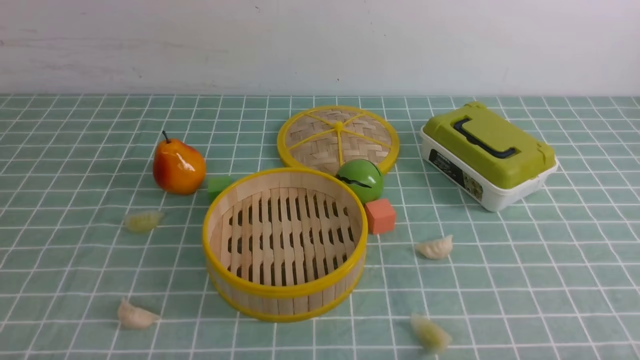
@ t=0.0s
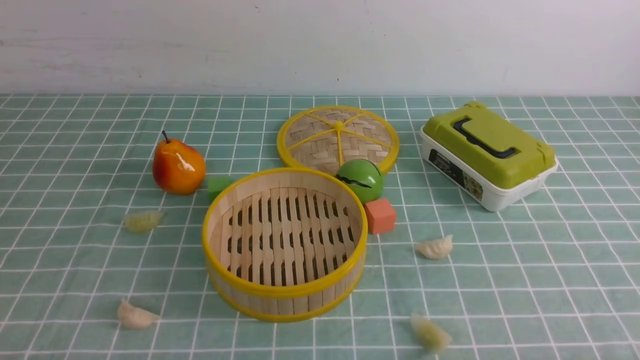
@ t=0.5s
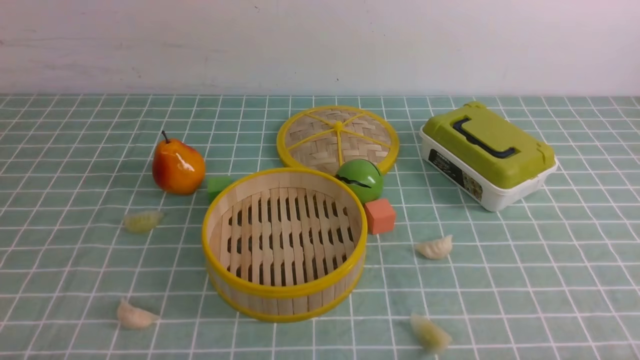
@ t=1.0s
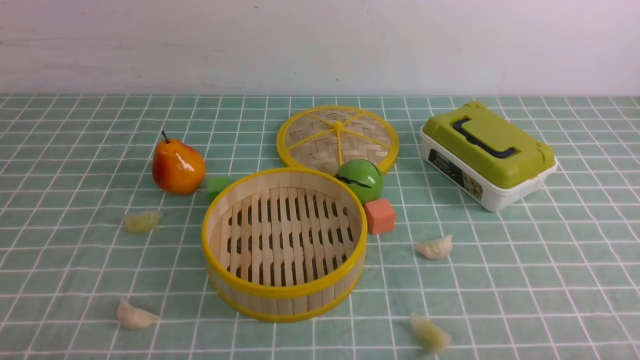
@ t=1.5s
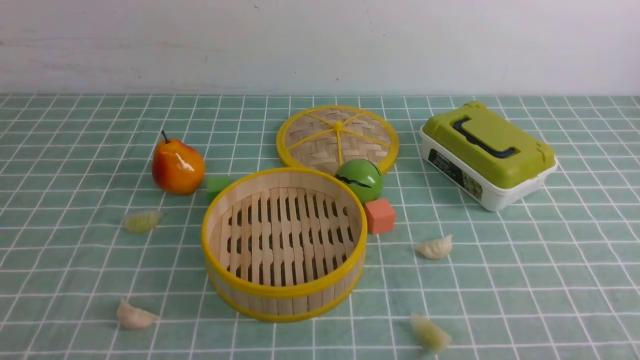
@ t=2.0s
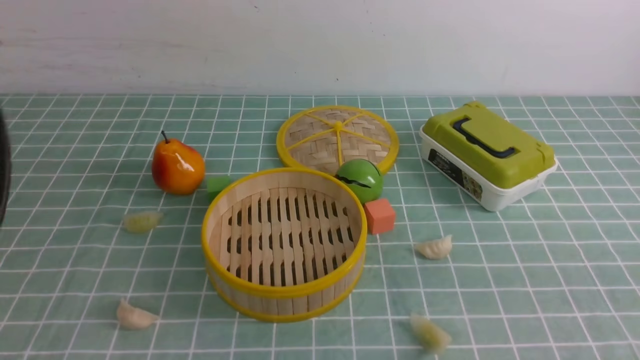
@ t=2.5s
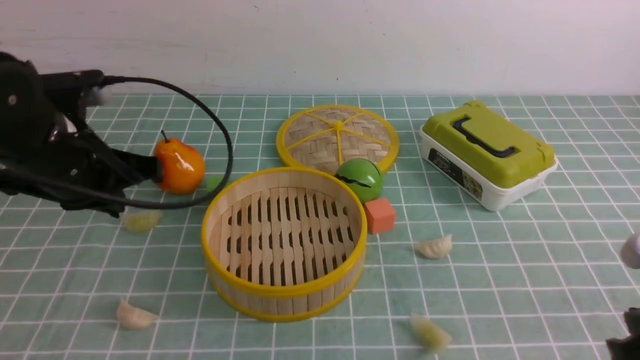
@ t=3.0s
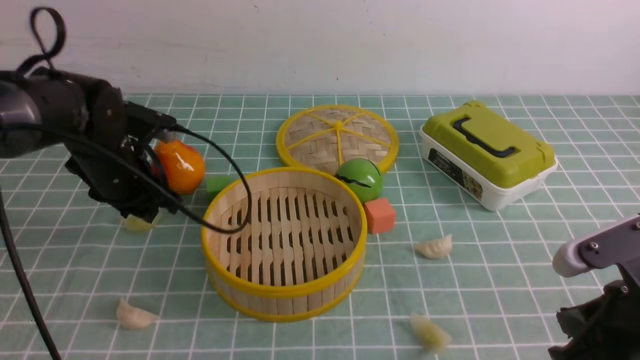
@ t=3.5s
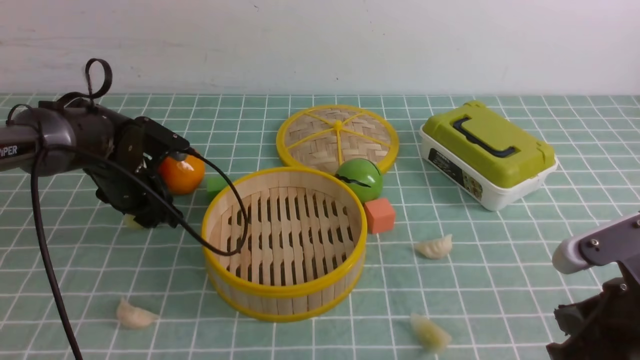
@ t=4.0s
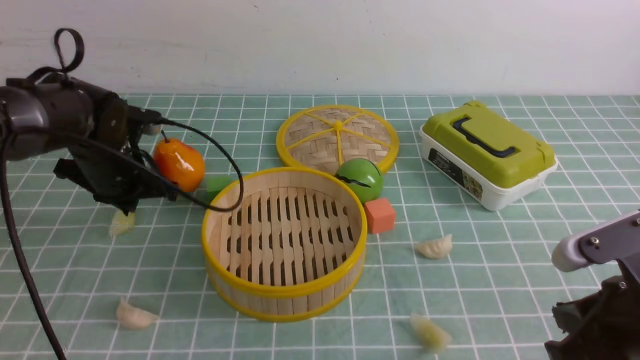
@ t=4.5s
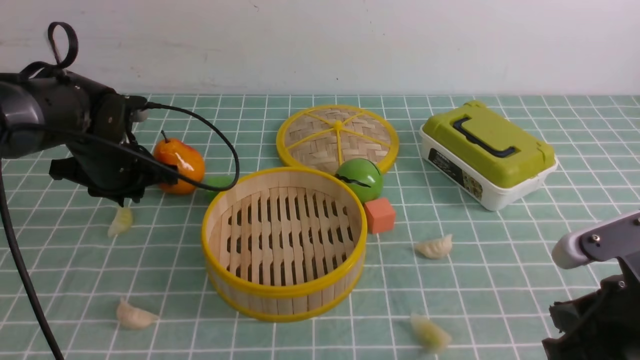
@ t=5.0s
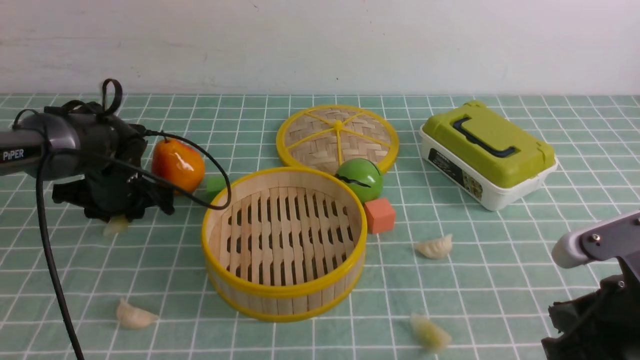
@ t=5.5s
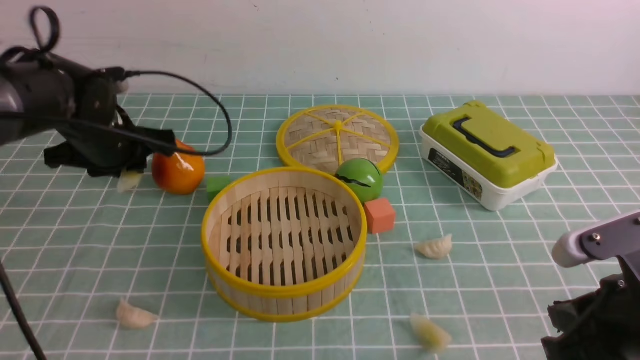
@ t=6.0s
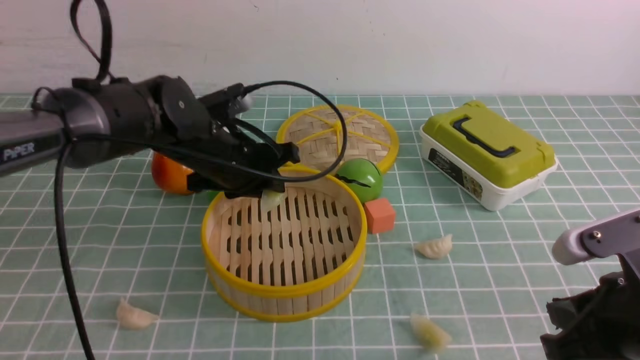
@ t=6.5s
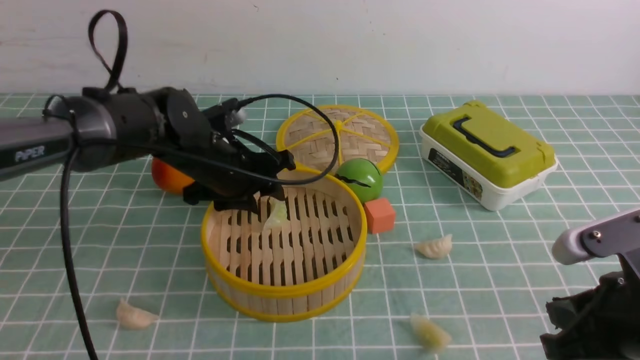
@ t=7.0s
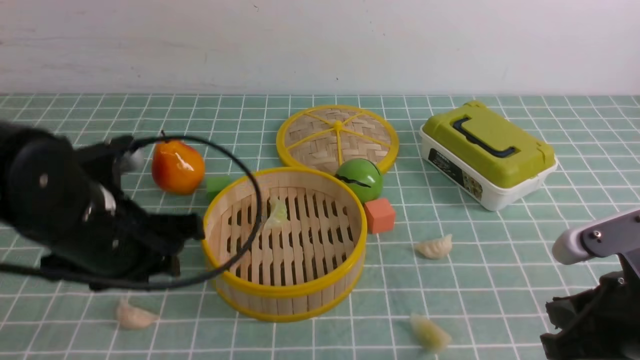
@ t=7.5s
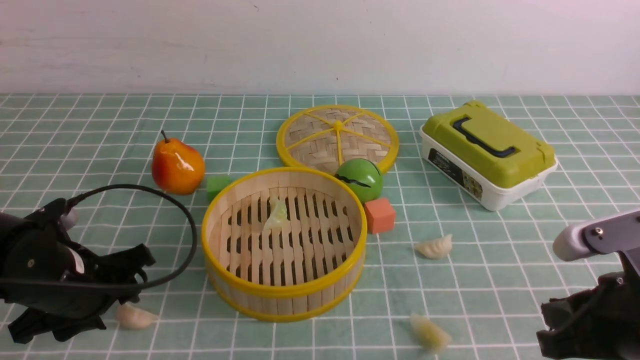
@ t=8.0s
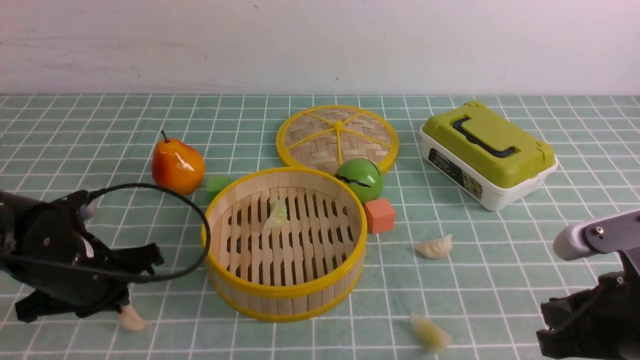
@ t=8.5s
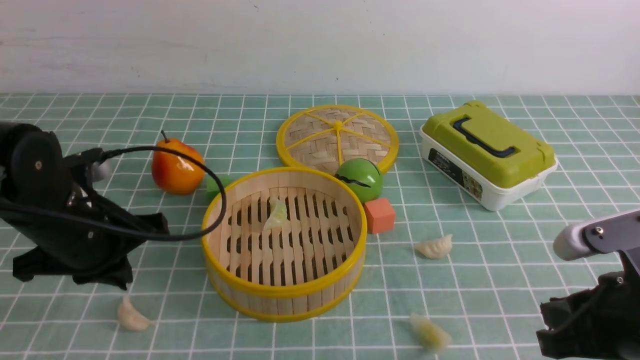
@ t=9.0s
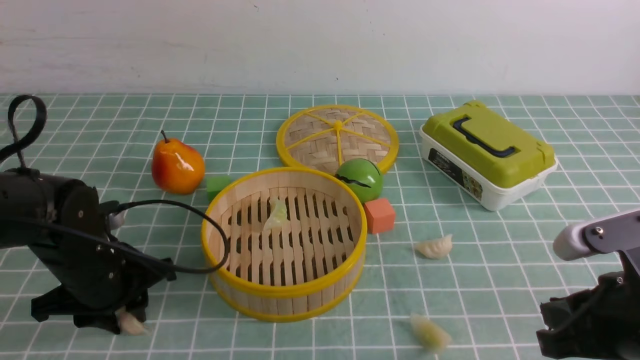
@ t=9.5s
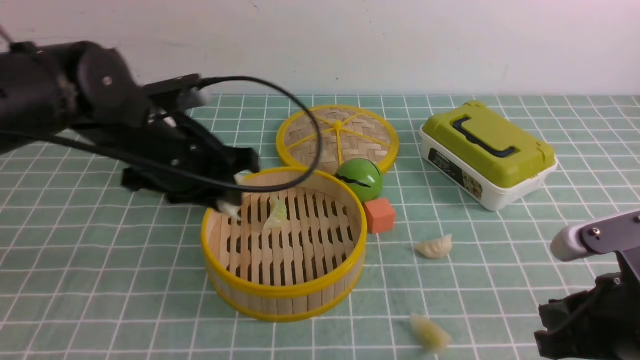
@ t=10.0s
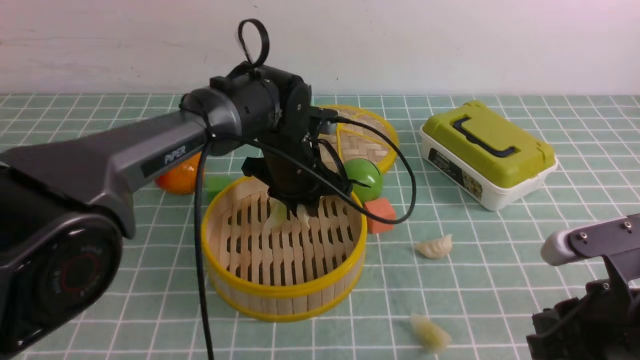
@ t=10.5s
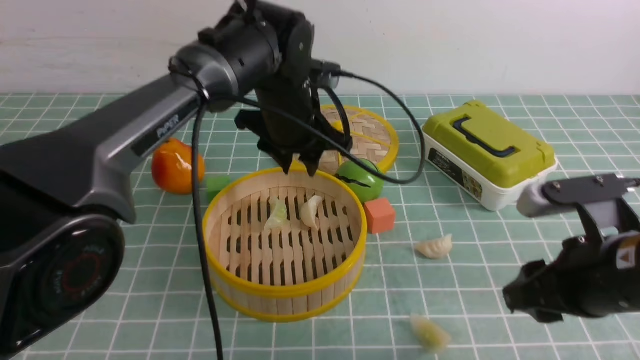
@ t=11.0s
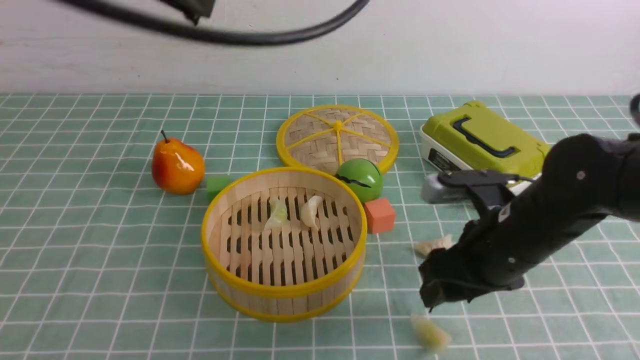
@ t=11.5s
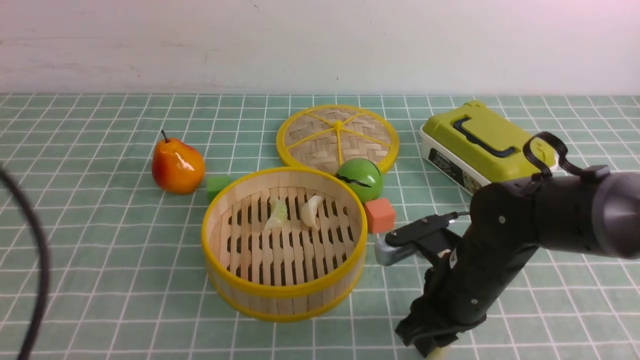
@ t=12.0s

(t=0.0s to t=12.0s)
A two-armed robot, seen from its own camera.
Task of the whole recording: put the dumplings into the steamer on the table with the blue tablecloth.
Step, t=0.0s - t=5.5s: use the left arm to grab a dumpling.
Step, t=6.0s - t=7.0s: use the left arm to put the dumpling into the steamer.
Step, t=7.5s - t=9.5s: use the left arm to grab a dumpling.
Step, t=10.0s - t=11.0s: use the left arm to put the dumpling into the steamer.
Step, t=11.5s - t=12.0s: use the right arm to grab a dumpling.
t=2.0s - t=4.0s: The left gripper heads forward, covering about 40 cm, and opens; the right gripper shifts about 15 cm forward and to the left, and closes.
t=4.0s - t=6.0s: The left gripper goes up and down, about 5 cm each way, reversing 2 times, and closes.
t=6.0s - t=8.0s: The left gripper moves backward and downward, about 15 cm, and opens up.
t=8.0s - t=10.0s: The left gripper is displaced to the right, forward and upward by some 15 cm, and closes its fingers.
t=10.0s - t=12.0s: The right gripper goes about 15 cm to the left and forward, while the left gripper travels backward and to the left by about 25 cm, and closes up.

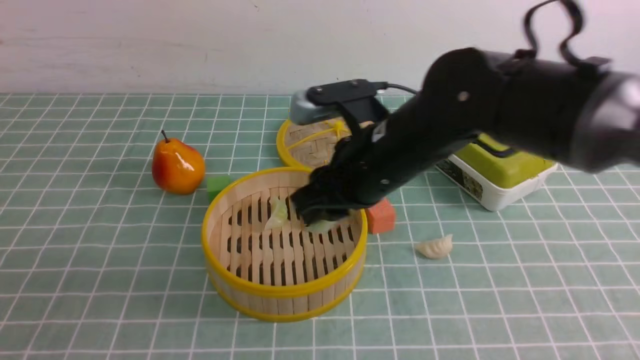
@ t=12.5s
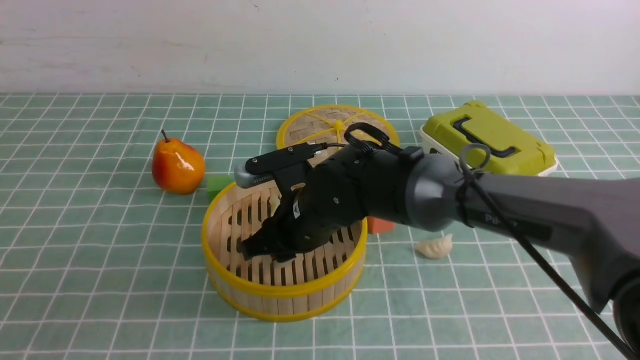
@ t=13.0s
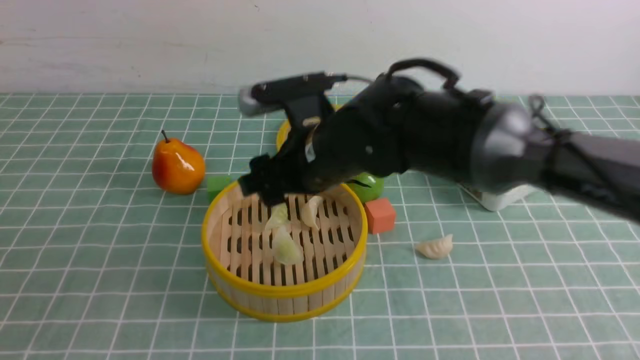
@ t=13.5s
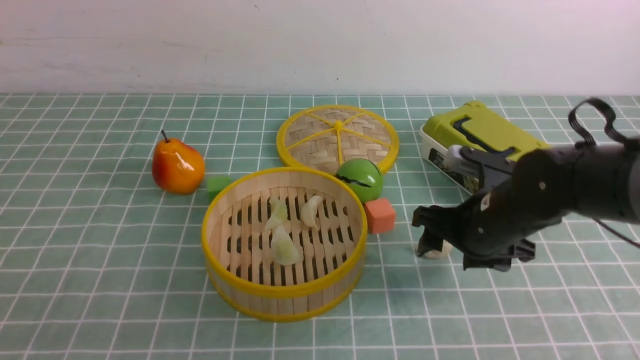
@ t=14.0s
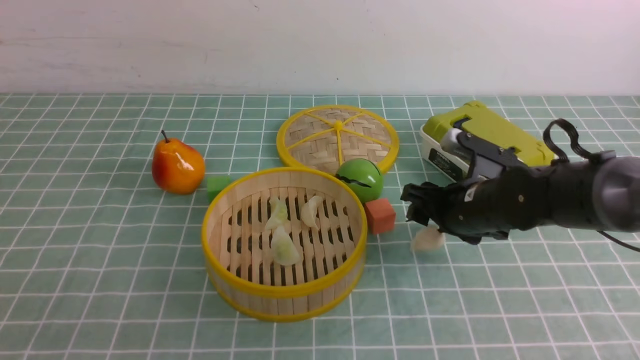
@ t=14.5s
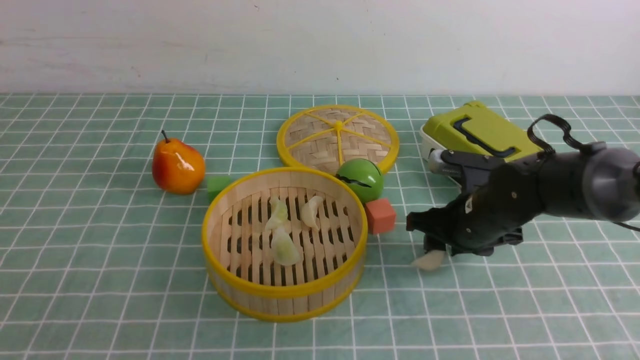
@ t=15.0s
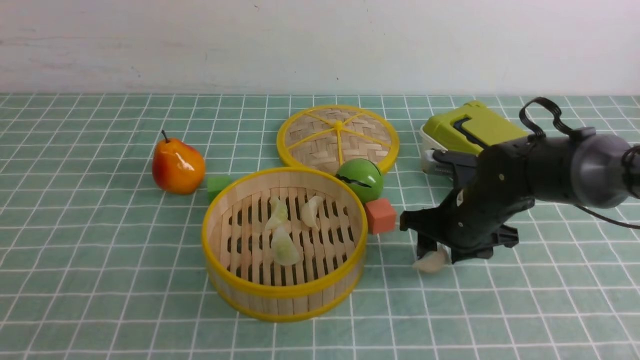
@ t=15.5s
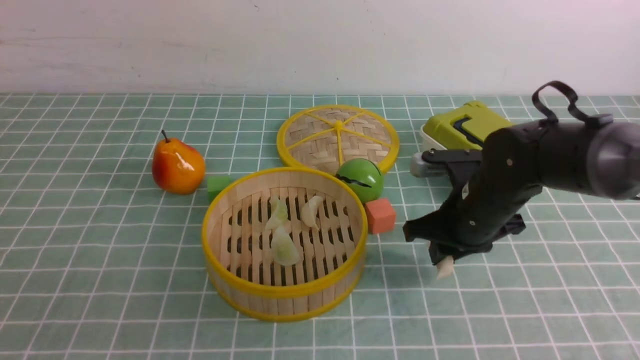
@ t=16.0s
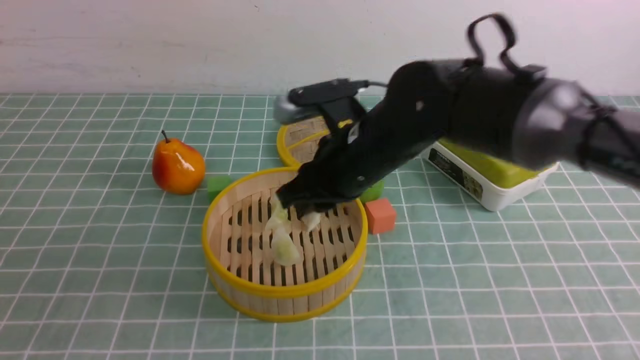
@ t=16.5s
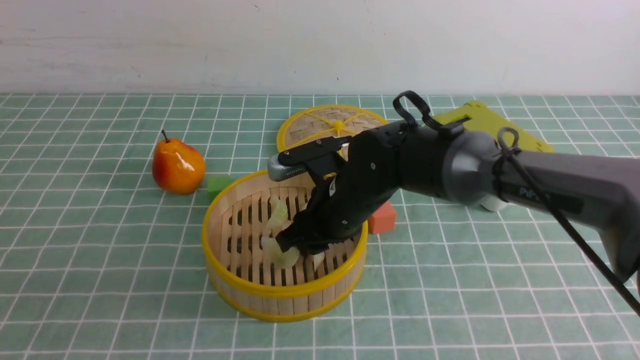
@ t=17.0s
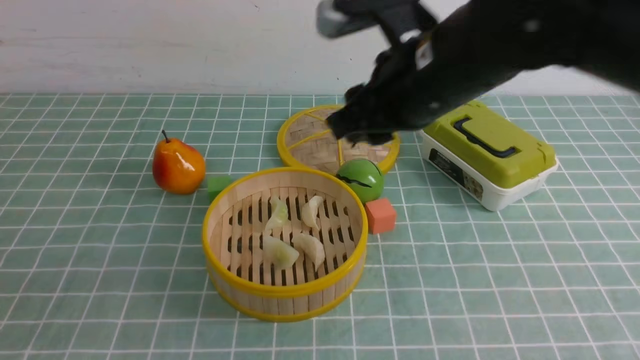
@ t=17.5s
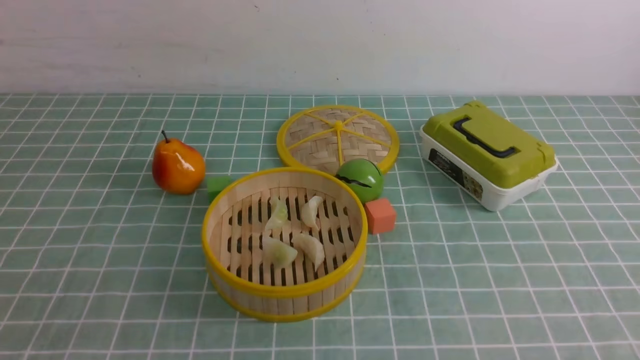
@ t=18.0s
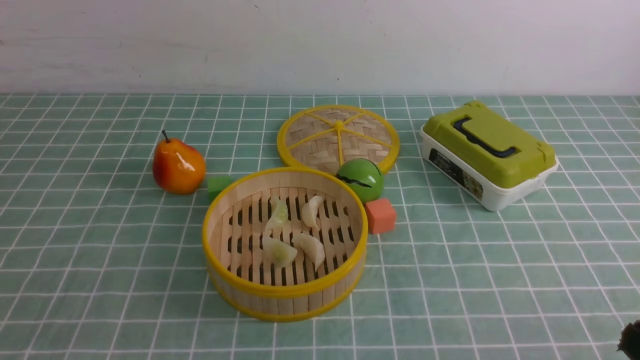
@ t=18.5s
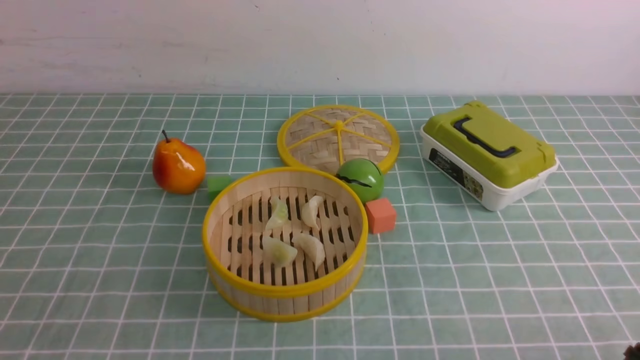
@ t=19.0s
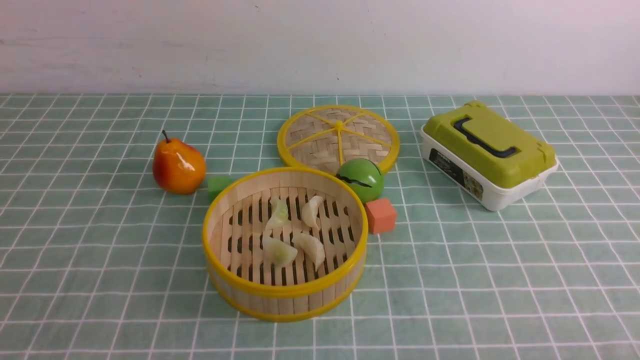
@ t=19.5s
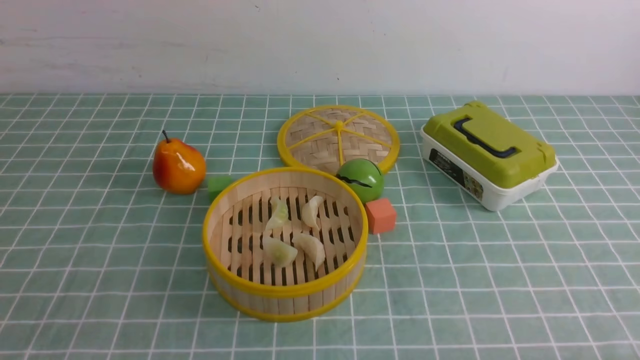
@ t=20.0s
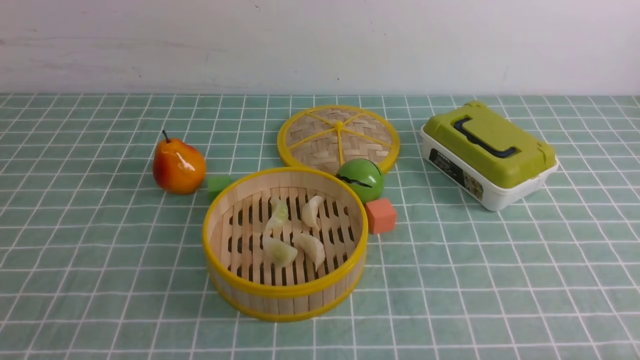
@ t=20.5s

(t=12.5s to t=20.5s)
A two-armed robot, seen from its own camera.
Task of the whole recording: put the dumplings into the steamer on the table with the blue tablecloth.
Step, t=12.5s - t=13.5s: use the right arm to put the dumpling into the steamer.
Step, t=14.0s - t=15.5s: use the right arm to grab a dumpling.
Step, t=16.0s - t=17.0s: use the right arm to put the dumpling into the steamer.
t=12.5s - t=14.5s: The right gripper heads to the right and downward, covering about 15 cm, and opens.
t=14.5s - t=16.5s: The right gripper shifts approximately 15 cm to the left and upward, and closes.
t=16.5s - t=18.5s: The right gripper is displaced backward and to the right by about 40 cm.
